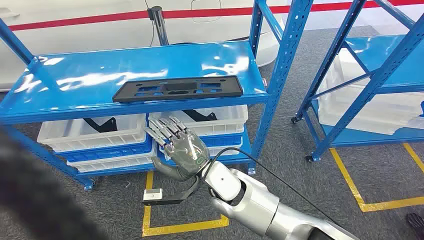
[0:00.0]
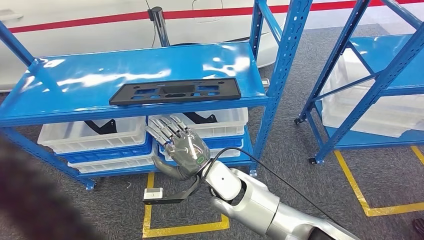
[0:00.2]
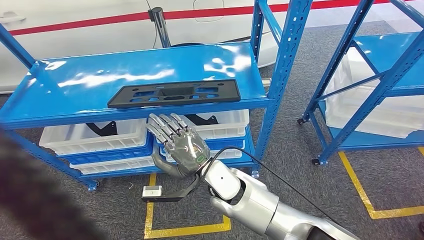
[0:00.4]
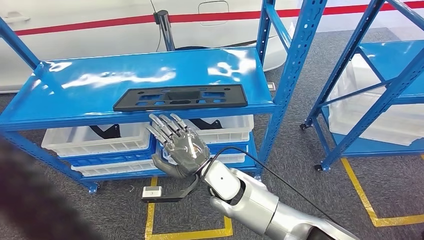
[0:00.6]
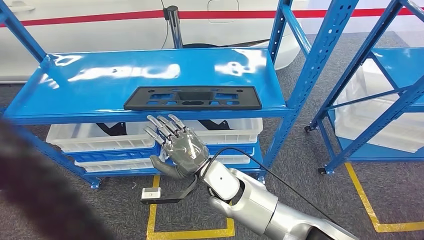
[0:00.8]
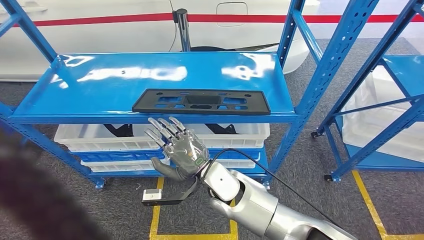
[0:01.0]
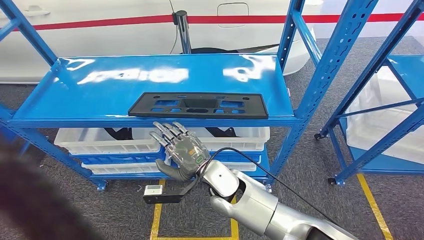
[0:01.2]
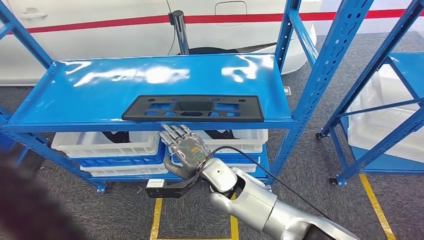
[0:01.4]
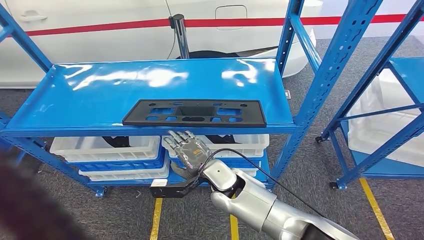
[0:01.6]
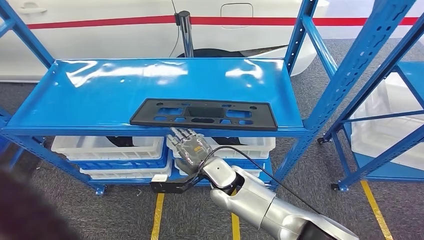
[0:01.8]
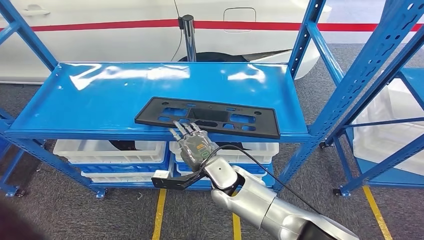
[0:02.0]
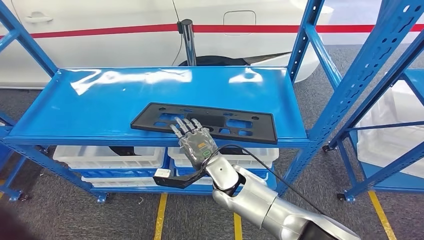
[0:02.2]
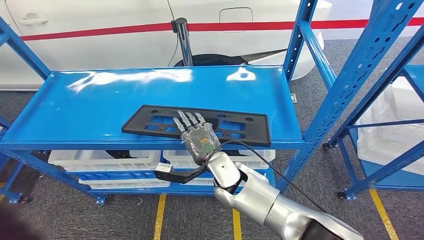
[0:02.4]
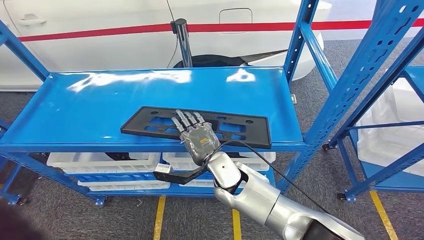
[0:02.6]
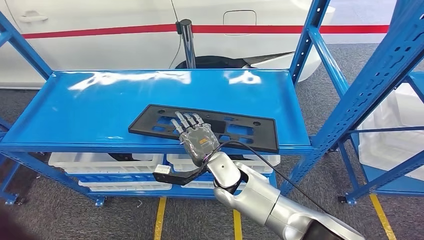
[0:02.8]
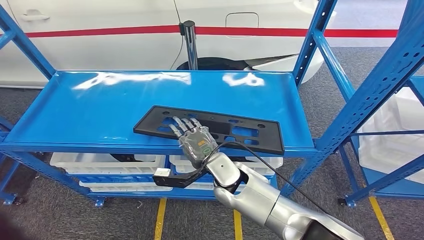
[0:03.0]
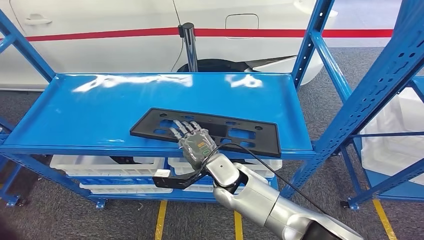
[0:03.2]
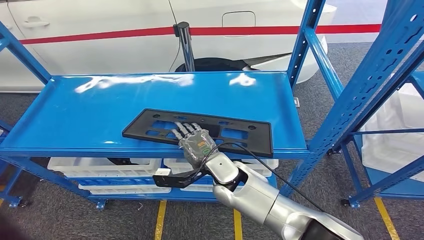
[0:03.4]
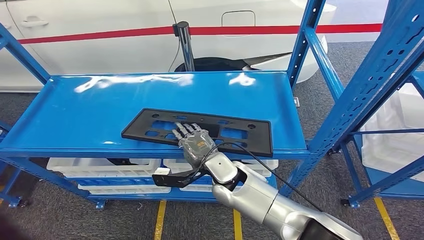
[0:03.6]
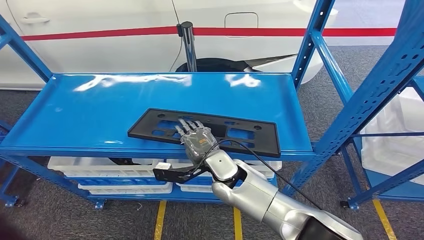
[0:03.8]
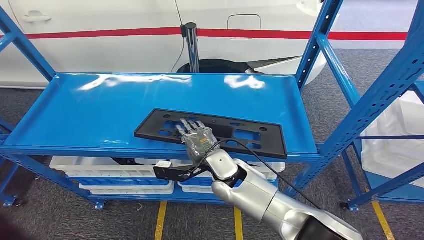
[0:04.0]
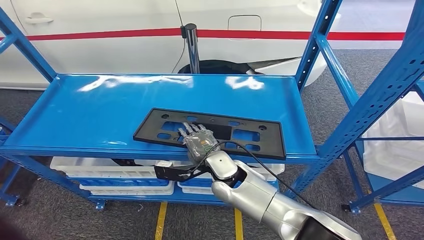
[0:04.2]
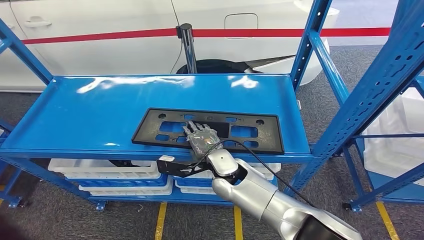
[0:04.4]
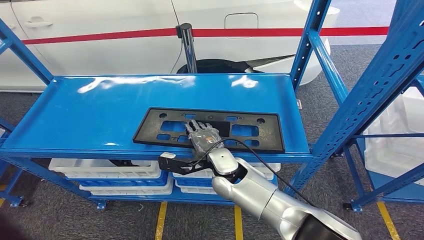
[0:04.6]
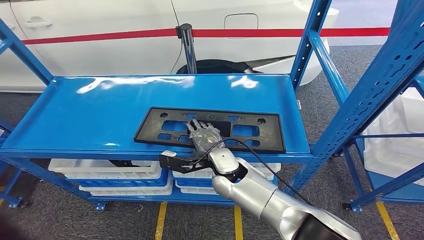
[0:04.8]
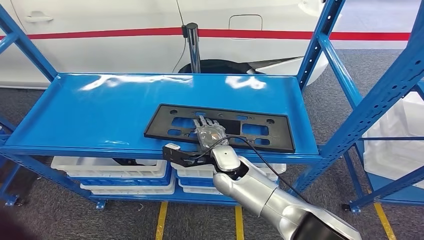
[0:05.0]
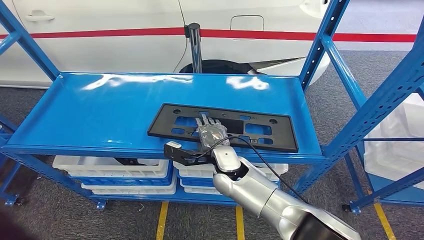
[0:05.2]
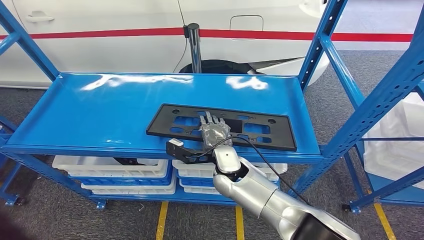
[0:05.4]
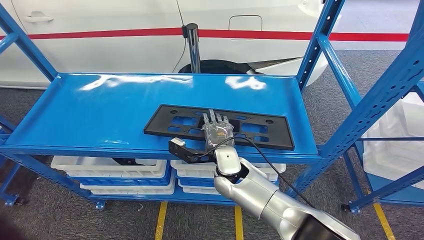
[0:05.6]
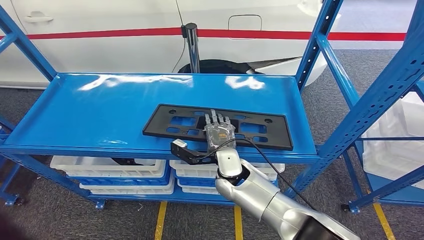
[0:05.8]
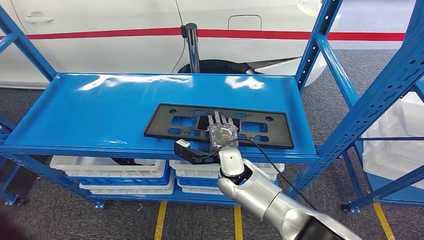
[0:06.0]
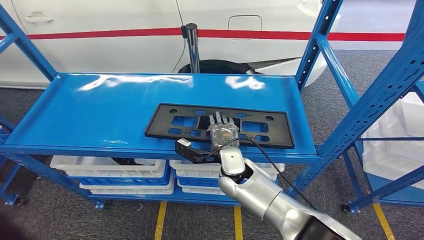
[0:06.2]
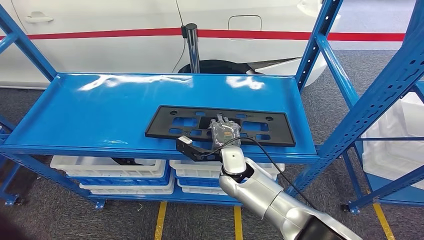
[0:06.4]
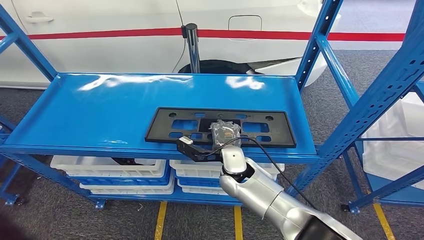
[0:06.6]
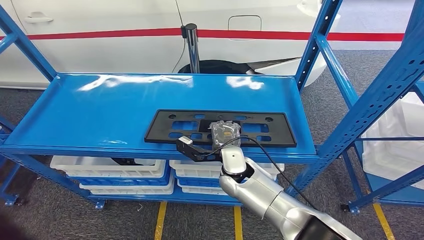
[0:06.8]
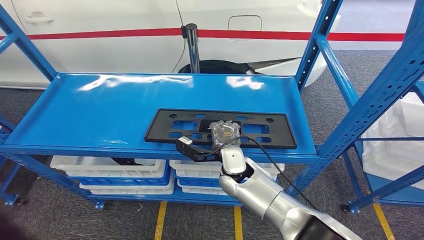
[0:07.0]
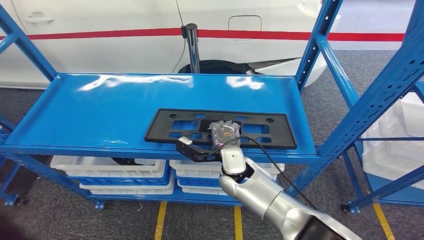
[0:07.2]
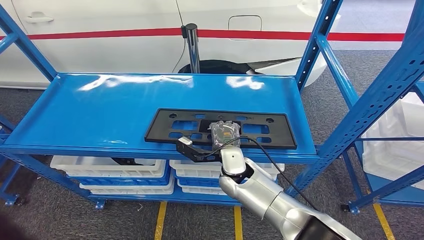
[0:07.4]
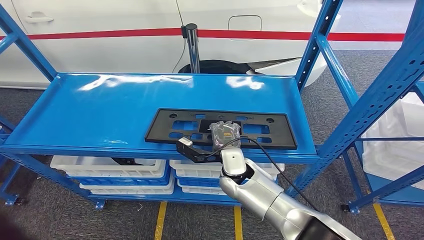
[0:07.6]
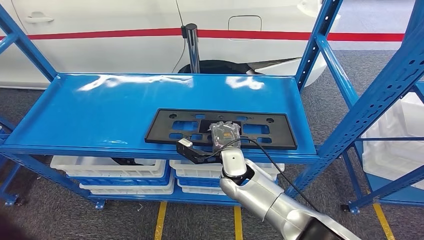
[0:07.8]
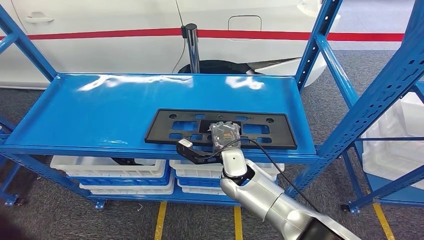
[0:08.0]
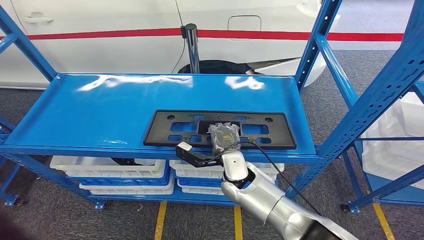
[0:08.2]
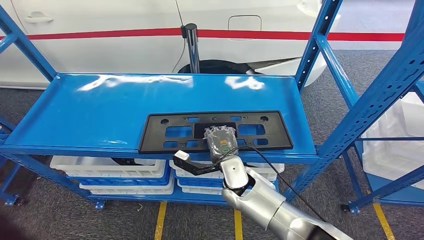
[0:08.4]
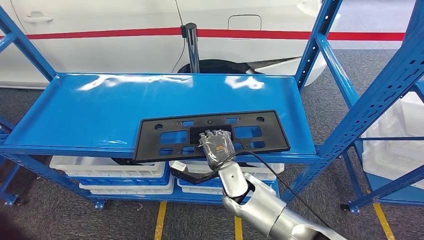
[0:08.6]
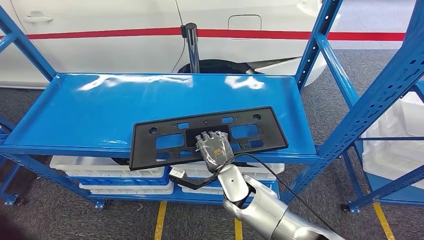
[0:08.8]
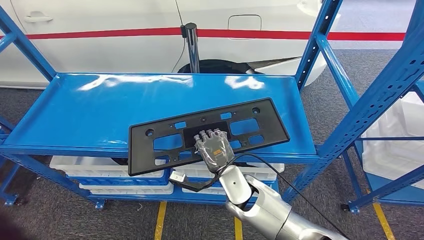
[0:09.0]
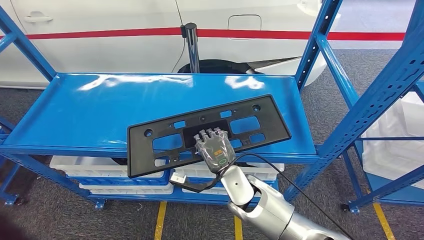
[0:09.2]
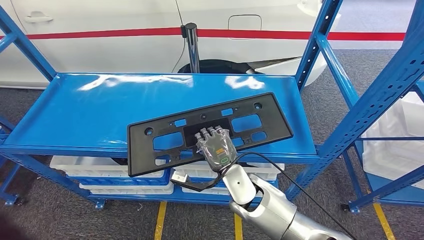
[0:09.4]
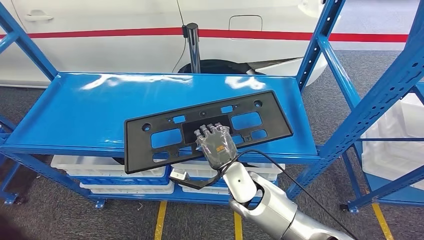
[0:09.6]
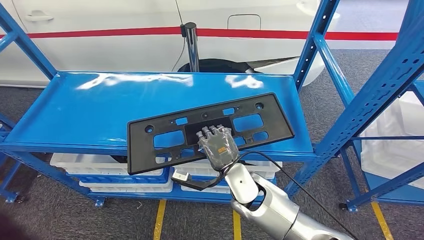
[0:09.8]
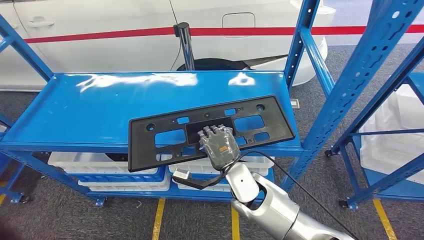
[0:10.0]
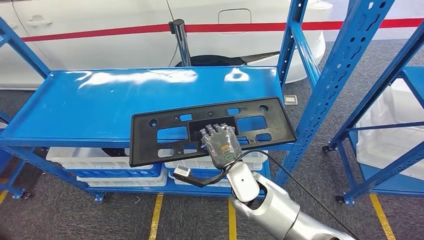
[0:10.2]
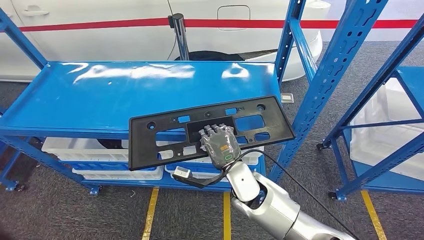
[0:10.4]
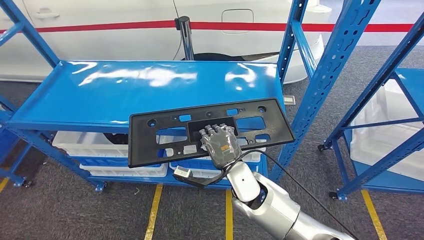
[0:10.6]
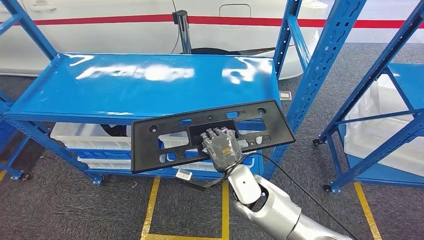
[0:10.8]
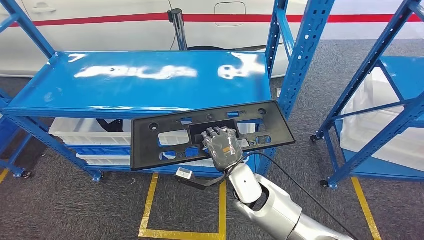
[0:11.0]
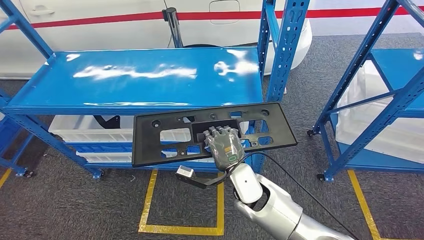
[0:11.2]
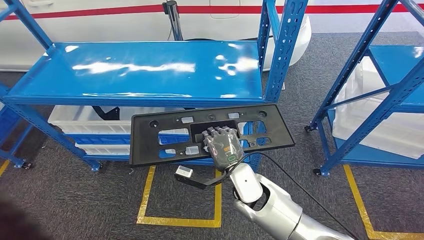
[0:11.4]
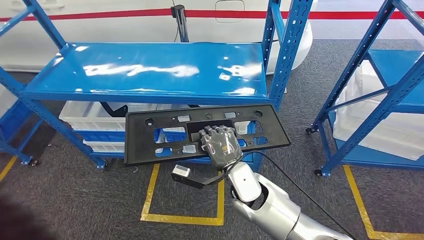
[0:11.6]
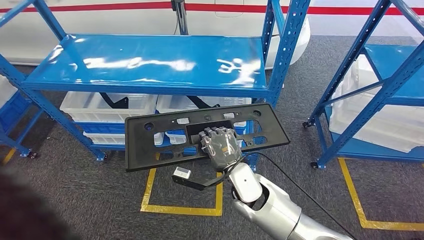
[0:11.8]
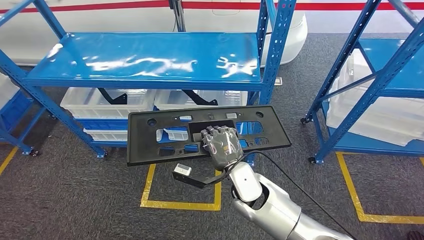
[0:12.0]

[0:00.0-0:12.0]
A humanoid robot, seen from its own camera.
0:06.0 to 0:07.6: The hands stay close to where they were, moving slightly.

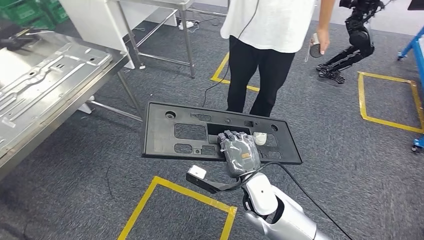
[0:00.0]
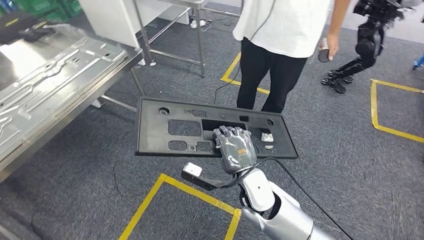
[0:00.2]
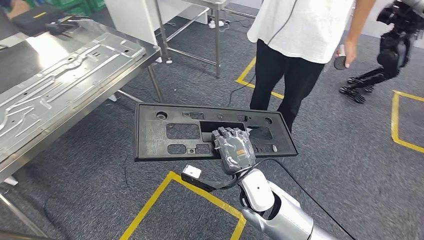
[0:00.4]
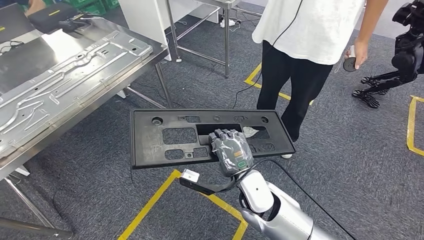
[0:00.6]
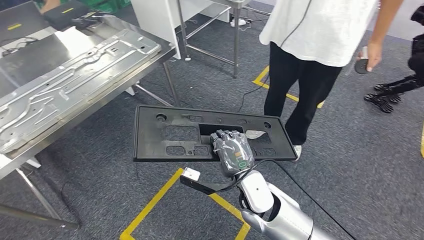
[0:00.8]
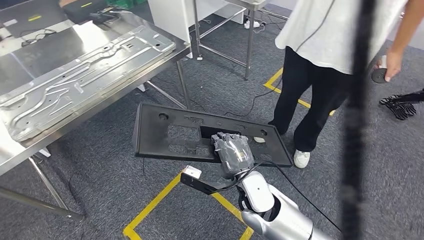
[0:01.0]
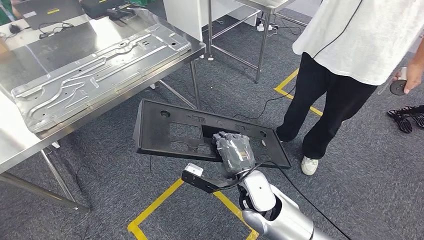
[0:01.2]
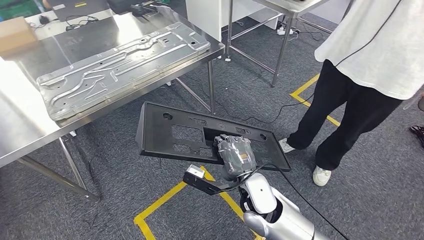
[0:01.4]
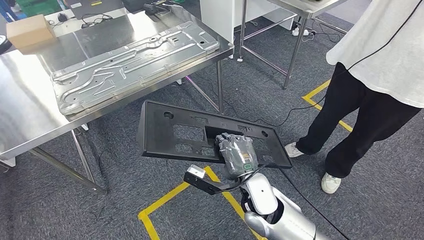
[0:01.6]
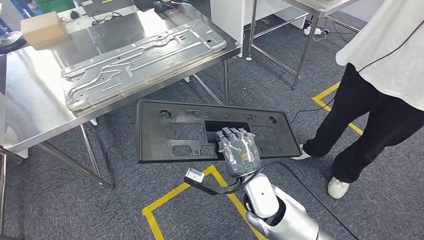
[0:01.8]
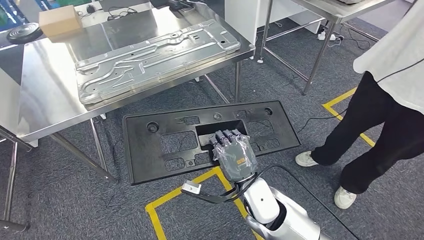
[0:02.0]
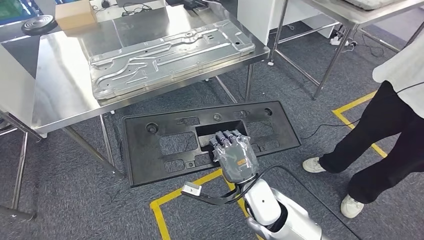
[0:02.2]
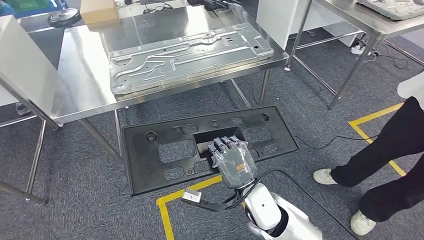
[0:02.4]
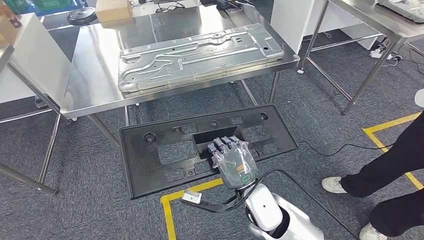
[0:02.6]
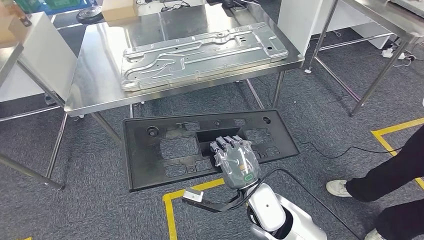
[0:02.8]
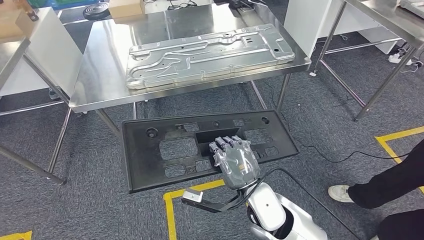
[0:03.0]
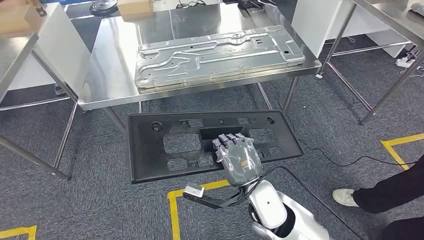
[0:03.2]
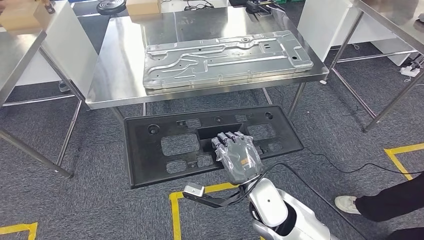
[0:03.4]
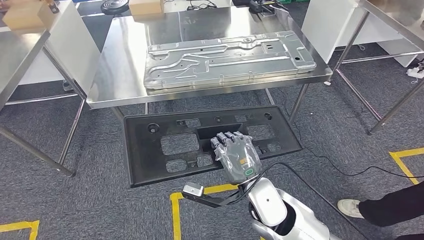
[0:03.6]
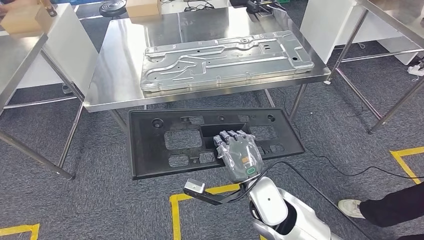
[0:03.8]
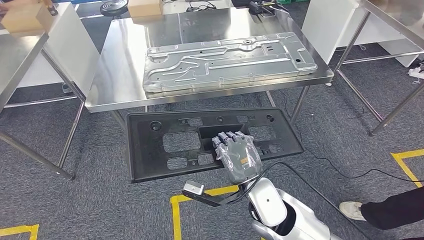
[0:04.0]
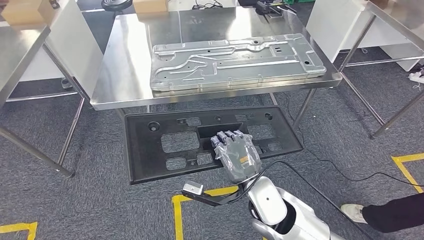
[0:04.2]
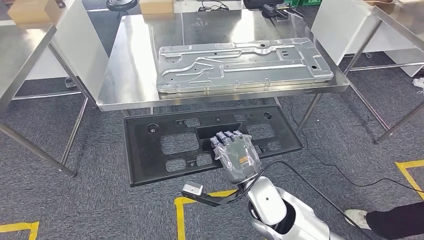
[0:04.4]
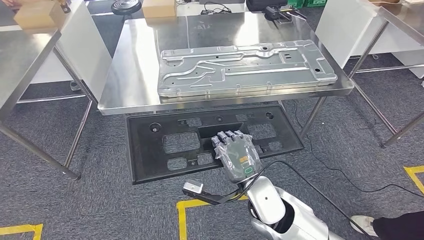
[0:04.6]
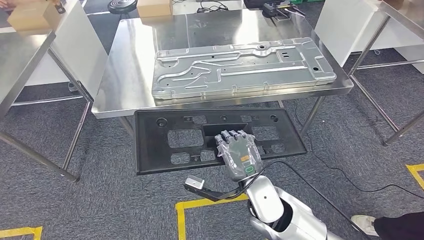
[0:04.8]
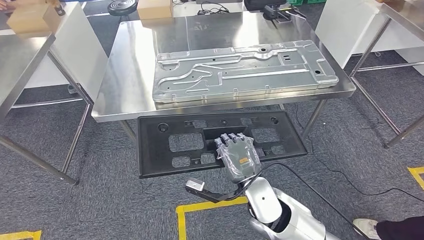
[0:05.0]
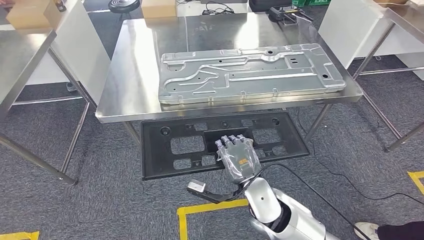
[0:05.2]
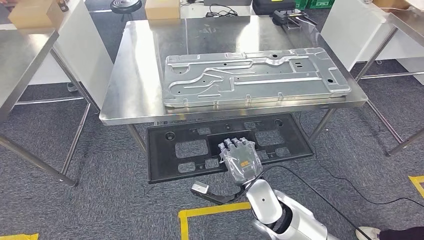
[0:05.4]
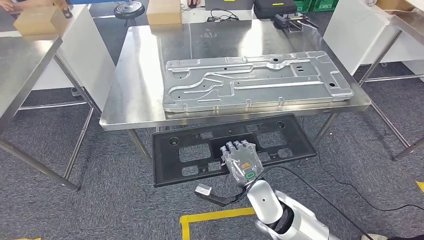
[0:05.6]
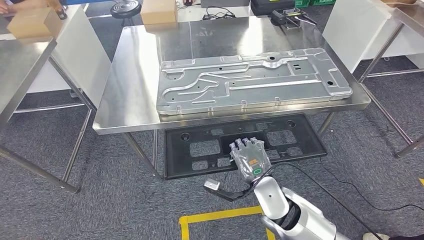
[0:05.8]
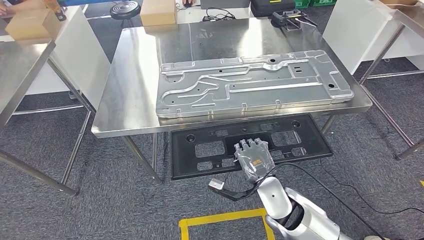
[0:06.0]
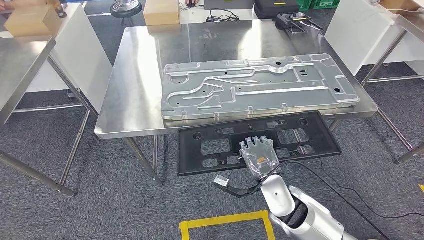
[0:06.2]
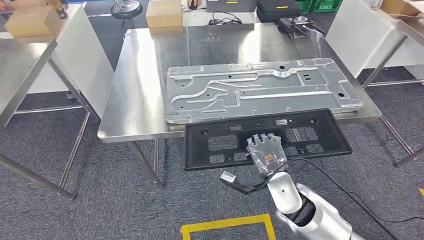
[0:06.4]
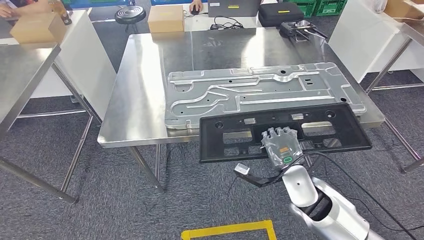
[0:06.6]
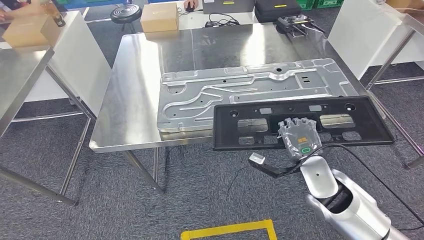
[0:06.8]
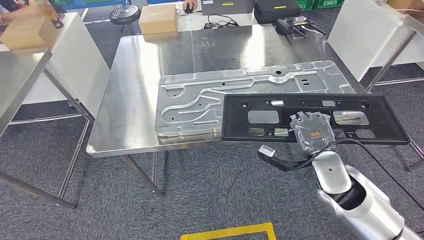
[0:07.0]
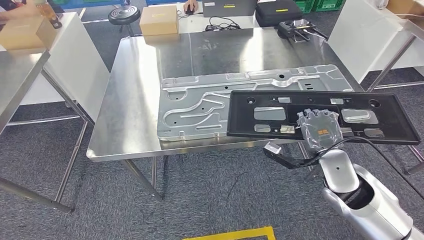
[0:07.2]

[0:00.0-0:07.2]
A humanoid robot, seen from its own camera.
Step, 0:00.0 to 0:05.2: Move the large material to the workbench.
